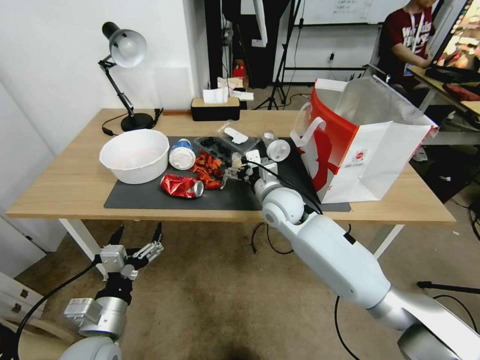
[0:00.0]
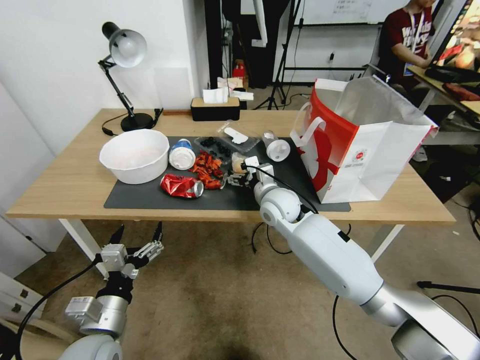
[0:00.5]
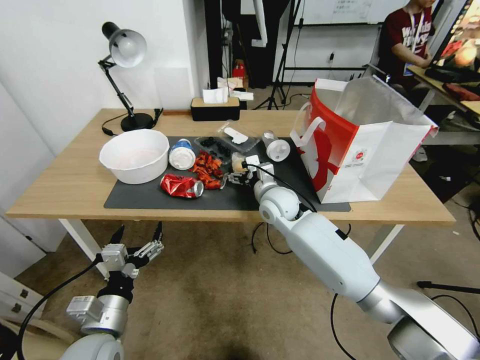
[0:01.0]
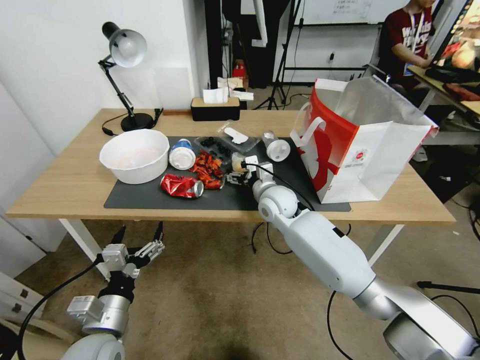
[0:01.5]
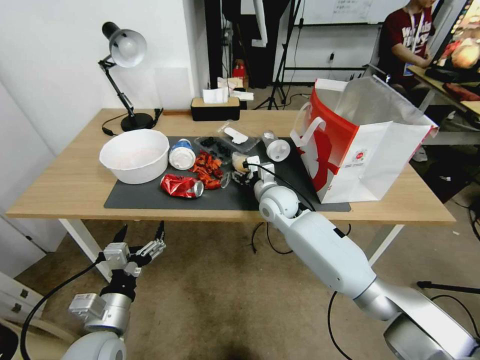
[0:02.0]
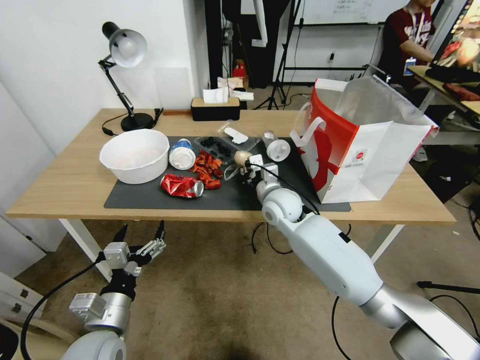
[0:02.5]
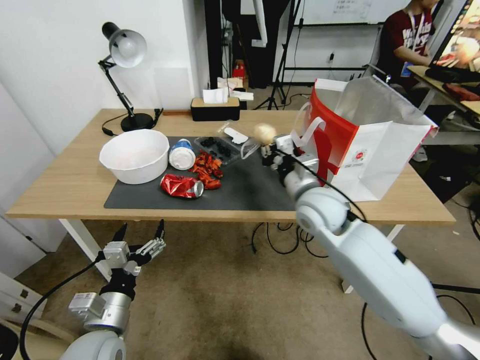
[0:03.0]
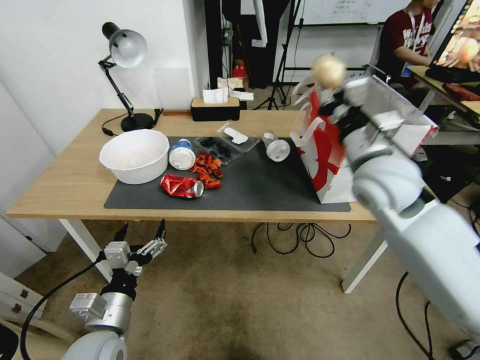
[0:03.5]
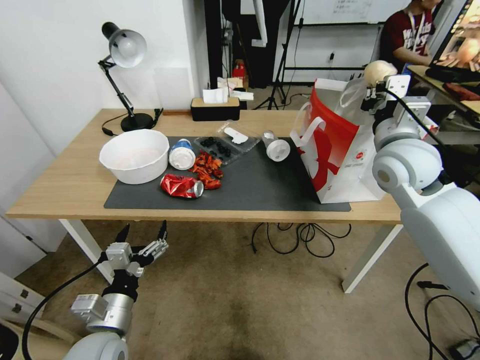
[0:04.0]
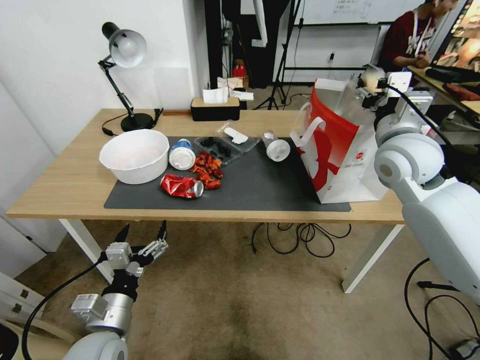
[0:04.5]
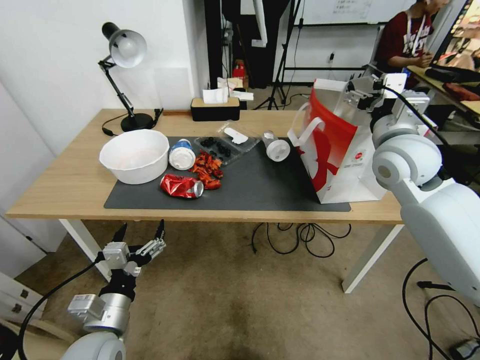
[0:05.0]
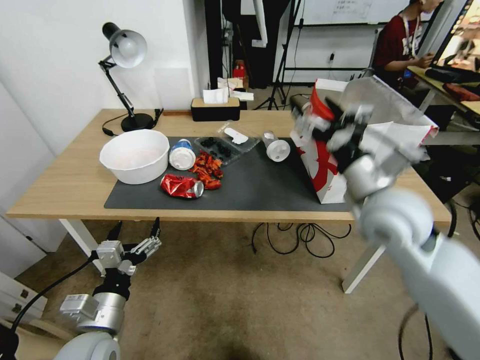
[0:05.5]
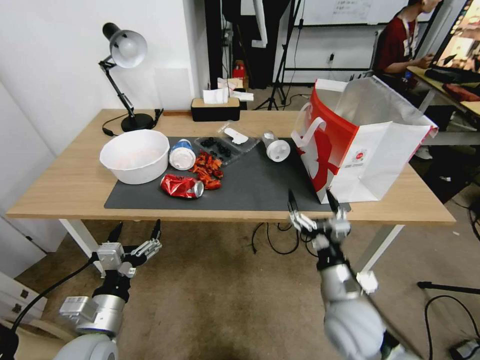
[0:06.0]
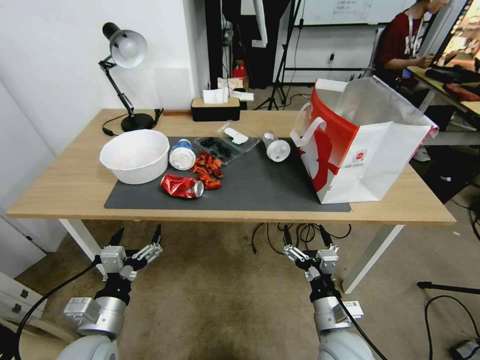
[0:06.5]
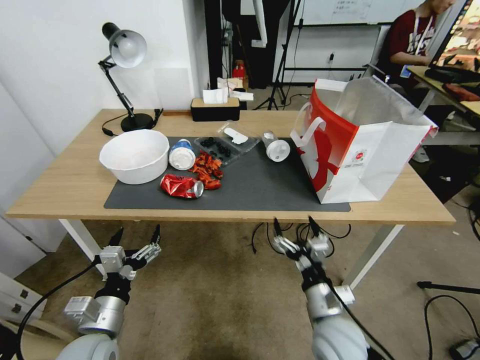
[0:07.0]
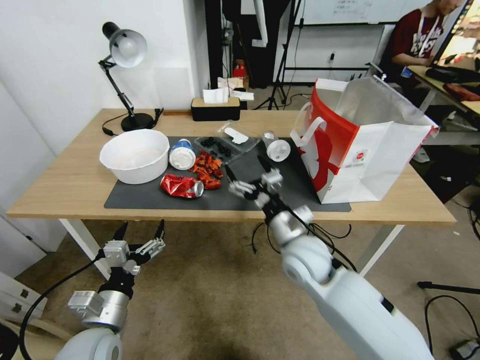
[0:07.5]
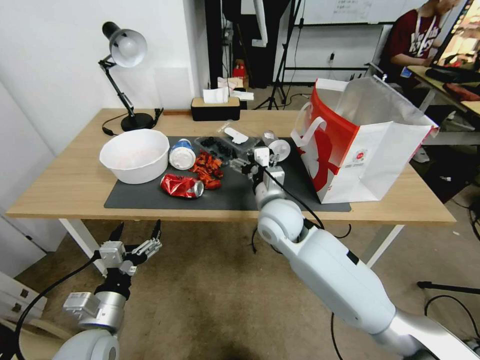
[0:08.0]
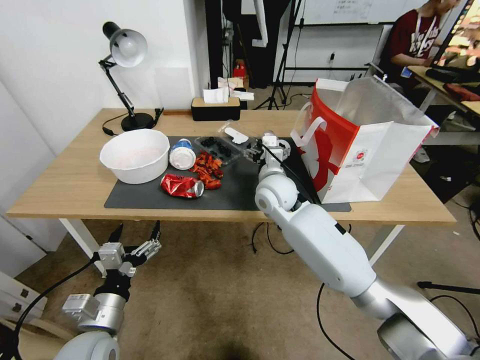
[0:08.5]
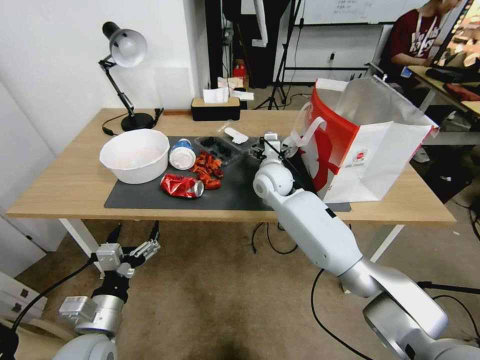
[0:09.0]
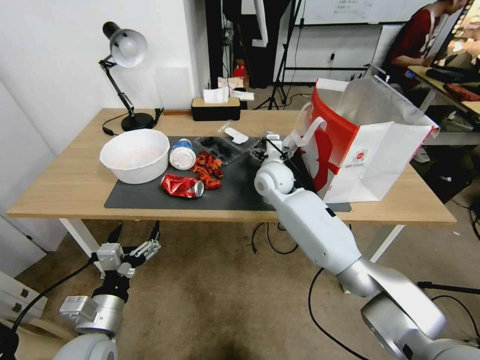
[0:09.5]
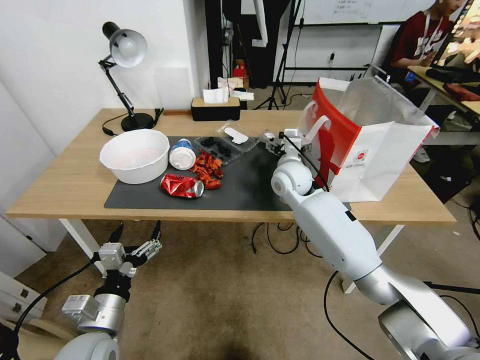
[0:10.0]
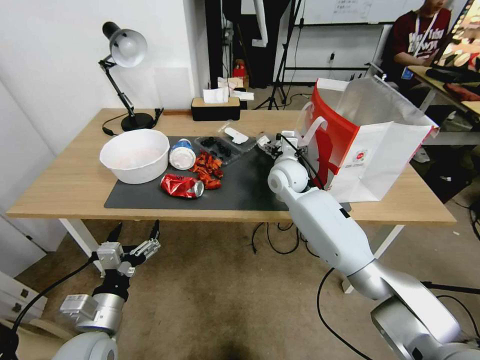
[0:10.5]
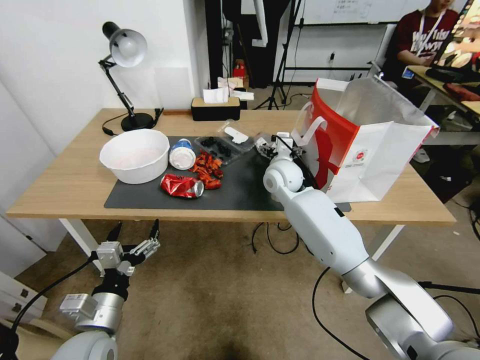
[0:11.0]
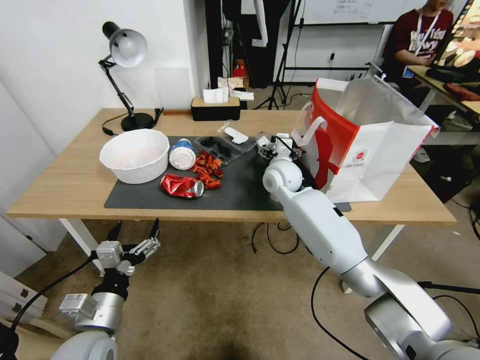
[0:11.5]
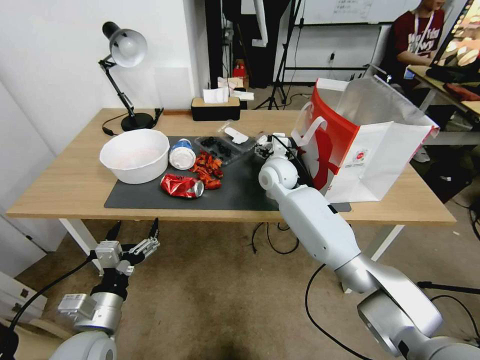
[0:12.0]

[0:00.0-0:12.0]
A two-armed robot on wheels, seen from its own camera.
0.0 to 2.0 s: The right gripper ends up some 5 cm from where it was, and closes its fingers.
2.0 to 4.0 s: The right gripper is displaced upward and to the right by some 30 cm, and closes its fingers.
4.0 to 6.0 s: The right gripper is displaced downward and backward by about 30 cm, and opens.
6.0 to 8.0 s: The right gripper travels forward, to the left and upward by approximately 20 cm.
8.0 to 10.0 s: The right gripper shifts roughly 10 cm forward.
10.0 to 12.0 s: There are only small adjustments of the grippers.

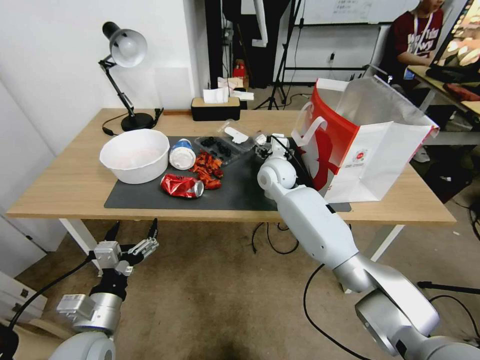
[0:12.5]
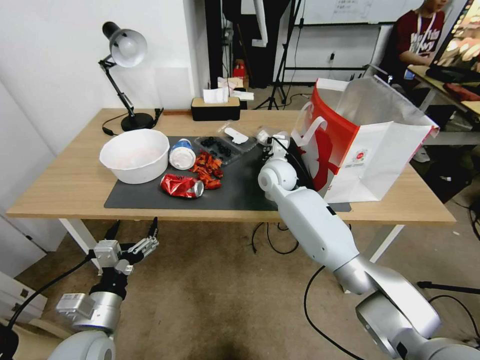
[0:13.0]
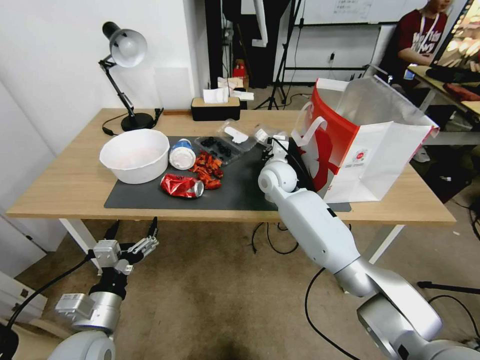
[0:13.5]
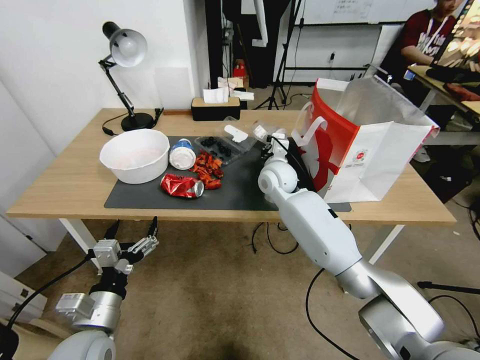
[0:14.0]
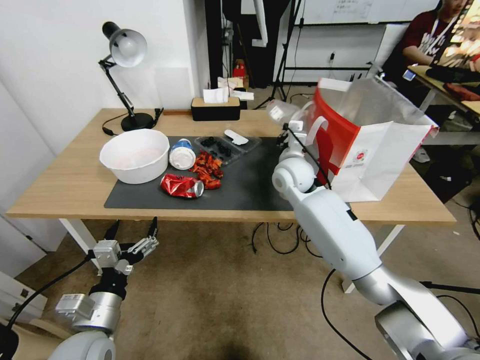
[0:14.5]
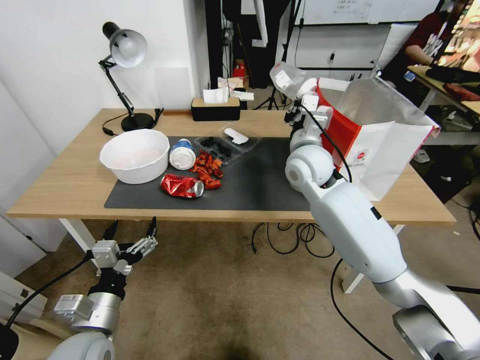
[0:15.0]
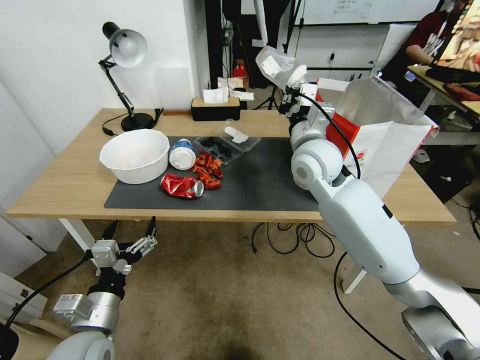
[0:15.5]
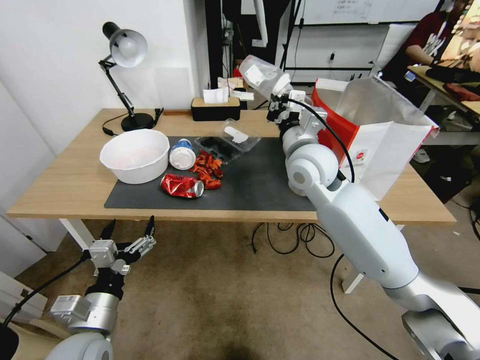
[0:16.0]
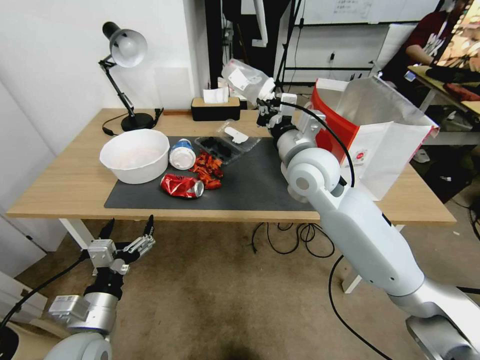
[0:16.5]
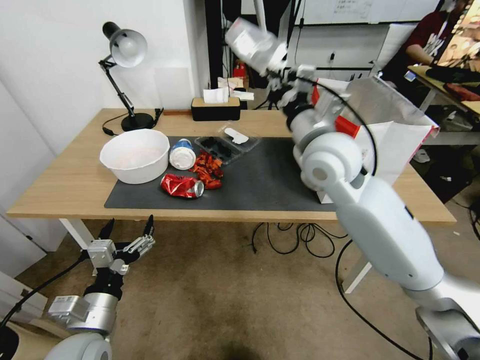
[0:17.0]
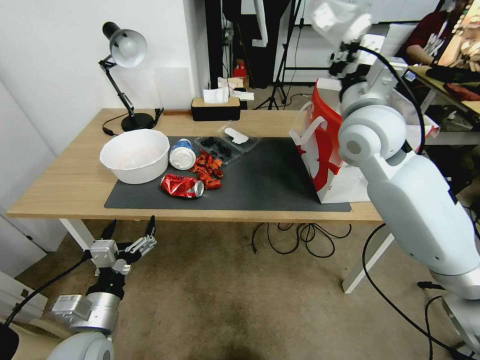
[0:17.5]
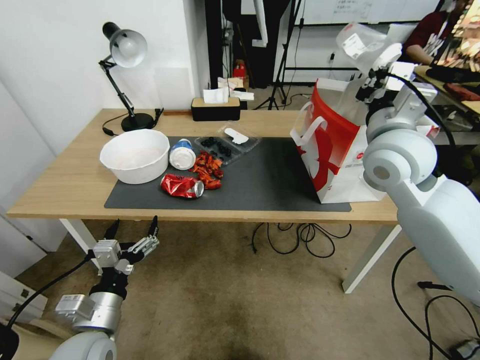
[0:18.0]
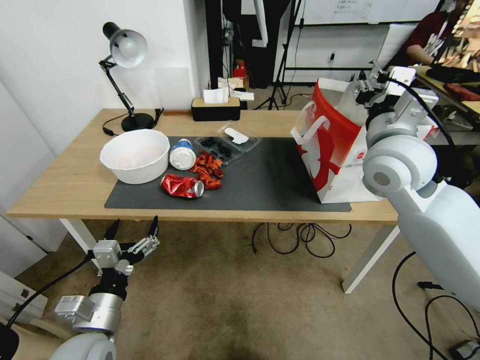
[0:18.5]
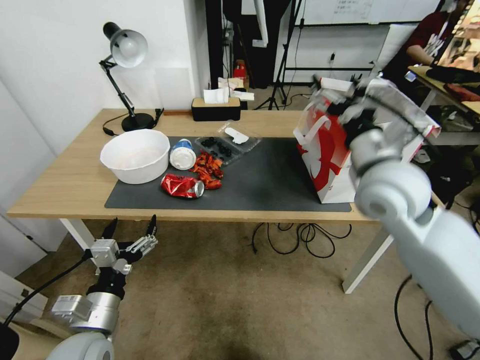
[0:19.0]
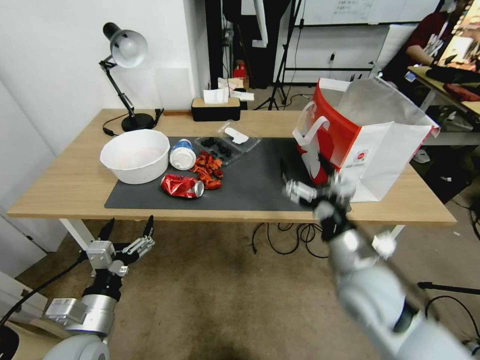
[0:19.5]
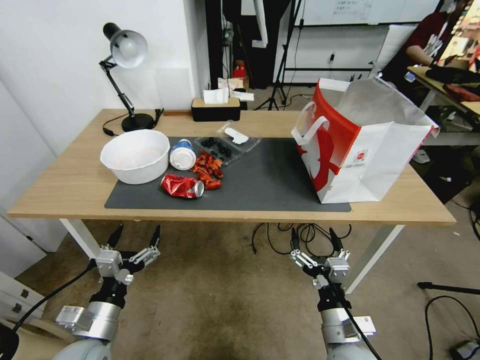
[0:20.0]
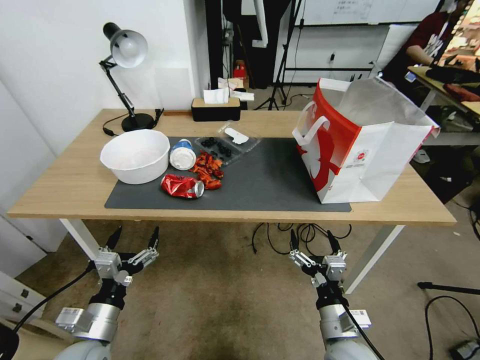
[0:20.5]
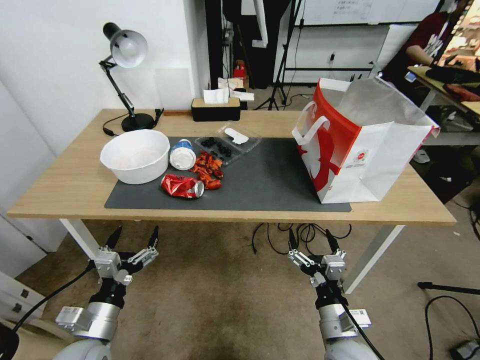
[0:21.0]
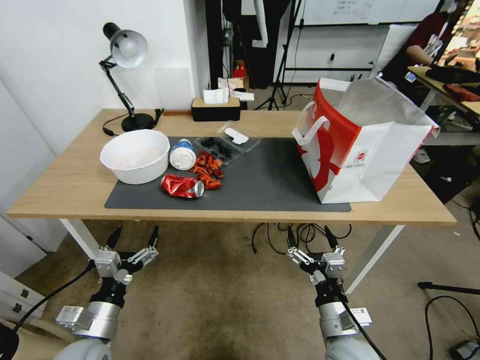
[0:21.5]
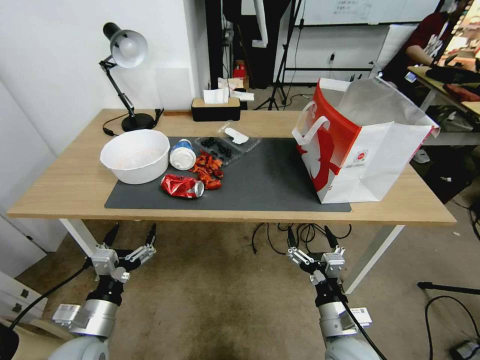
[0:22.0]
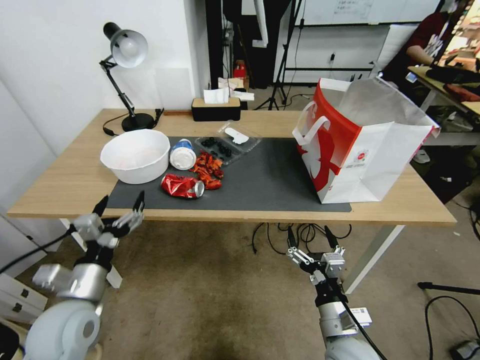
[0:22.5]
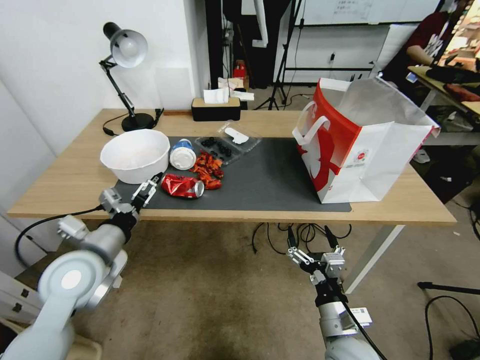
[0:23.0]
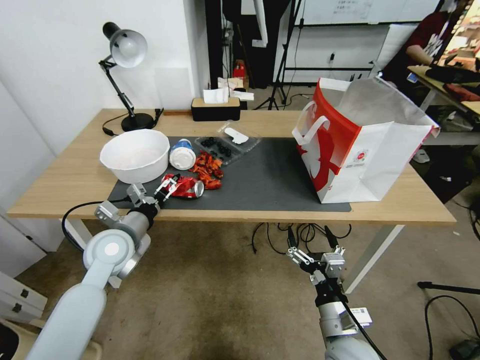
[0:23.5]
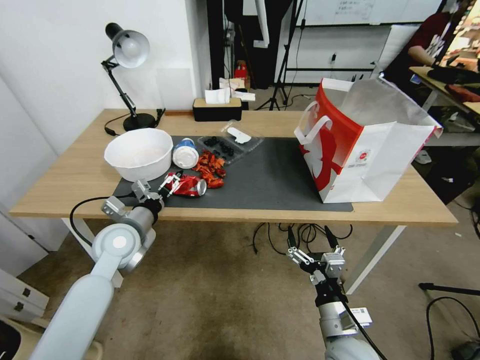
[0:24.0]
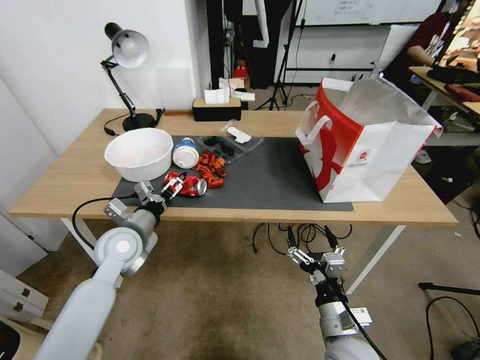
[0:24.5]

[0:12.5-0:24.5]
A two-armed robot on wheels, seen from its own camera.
12.5 to 14.5 s: The right gripper shifts by approximately 5 cm, and closes up.
14.5 to 16.5 s: The right gripper moves upward and backward, about 15 cm.
16.5 to 18.5 s: The right gripper moves to the right and upward, roughly 15 cm, and opens its fingers.
18.5 to 20.5 s: The right gripper is displaced downward and backward by about 40 cm, and opens its fingers.
20.5 to 22.5 s: The left gripper goes some 5 cm upward.
22.5 to 24.5 s: The left gripper is displaced forward by roughly 15 cm.

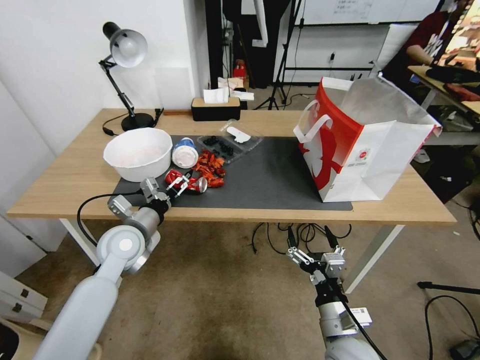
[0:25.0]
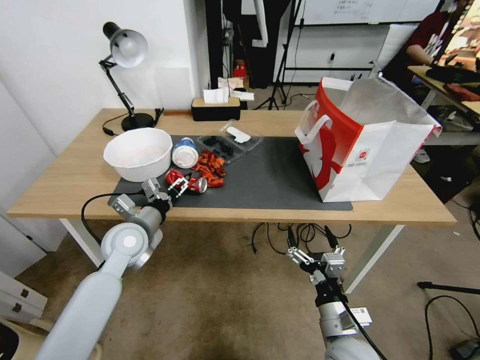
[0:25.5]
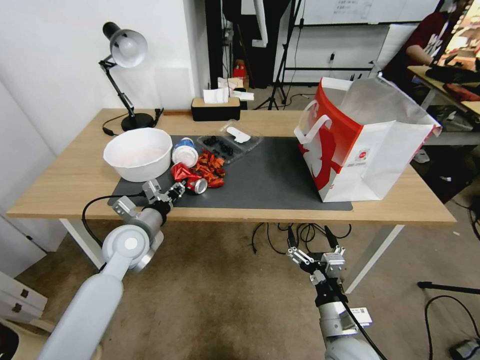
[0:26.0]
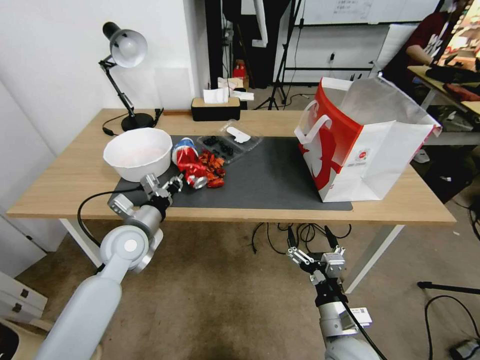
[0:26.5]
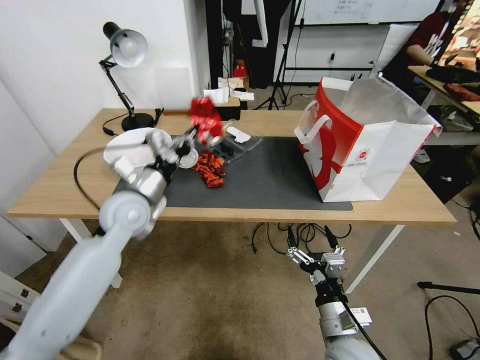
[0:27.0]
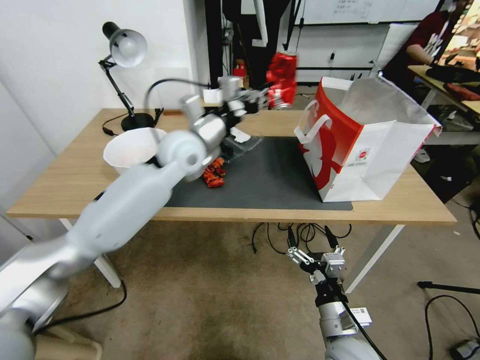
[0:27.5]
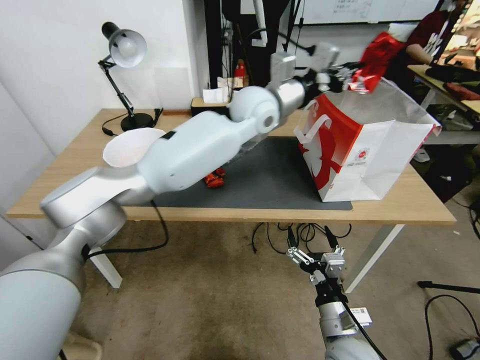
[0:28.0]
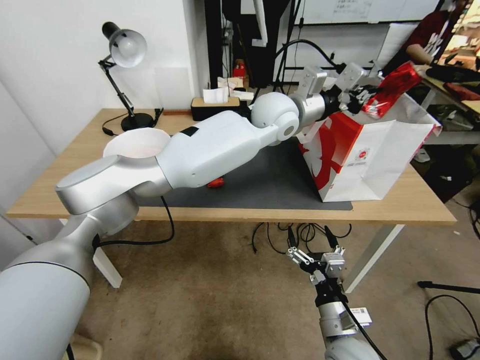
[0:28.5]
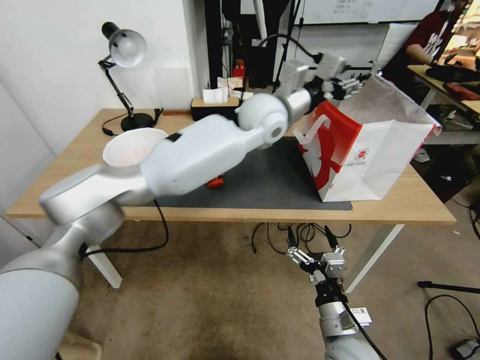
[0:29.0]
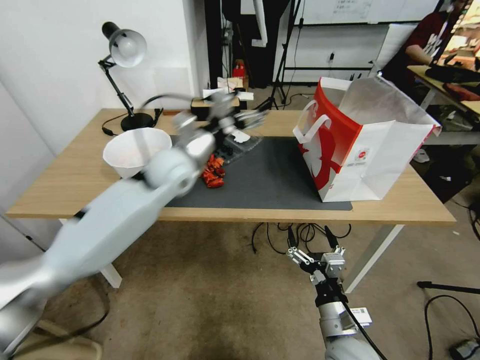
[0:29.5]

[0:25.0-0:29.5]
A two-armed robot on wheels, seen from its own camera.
25.0 to 27.0 s: The left gripper moves upward, approximately 5 cm, and closes.
27.0 to 29.5 s: The left gripper moves upward and forward, approximately 10 cm, travels to the right and back again, about 30 cm each way, and opens.
